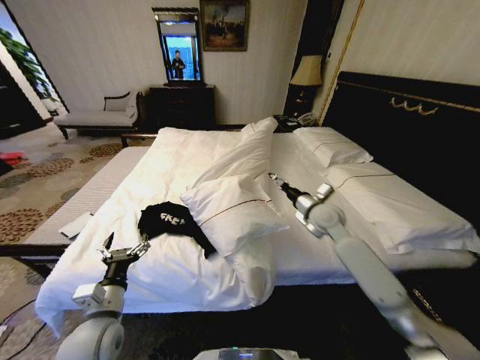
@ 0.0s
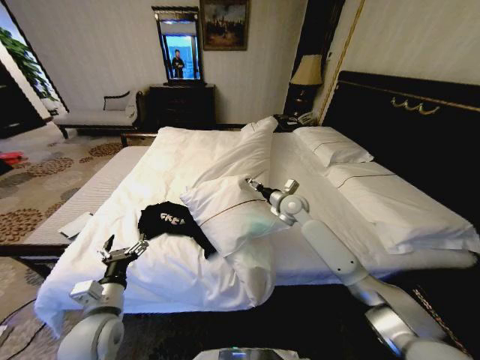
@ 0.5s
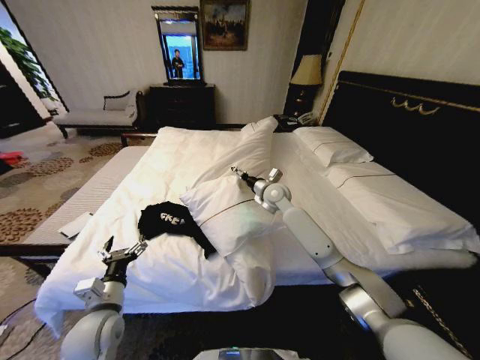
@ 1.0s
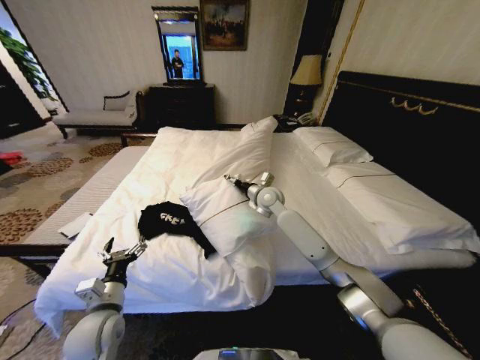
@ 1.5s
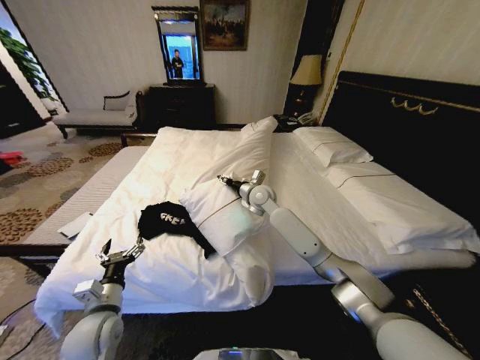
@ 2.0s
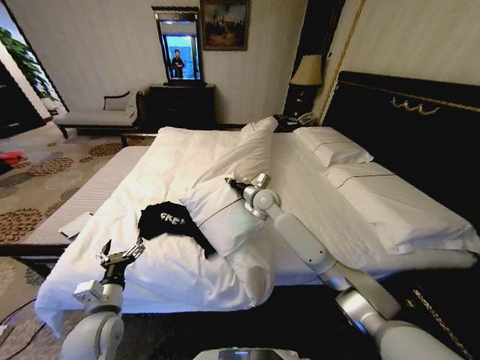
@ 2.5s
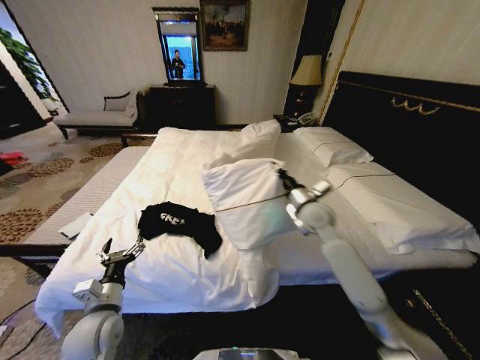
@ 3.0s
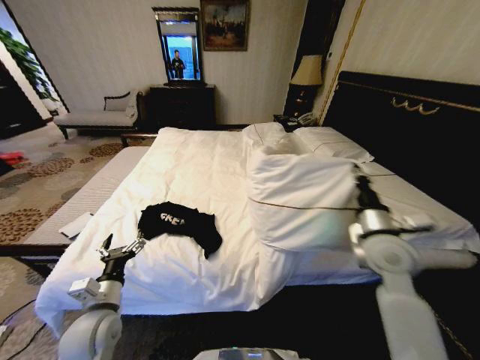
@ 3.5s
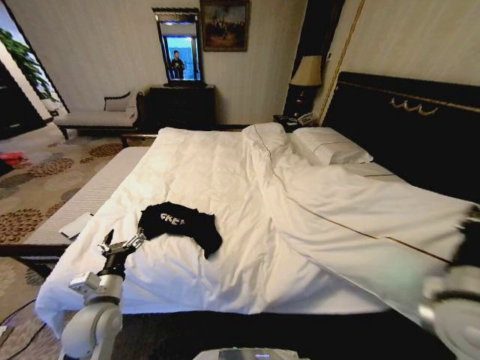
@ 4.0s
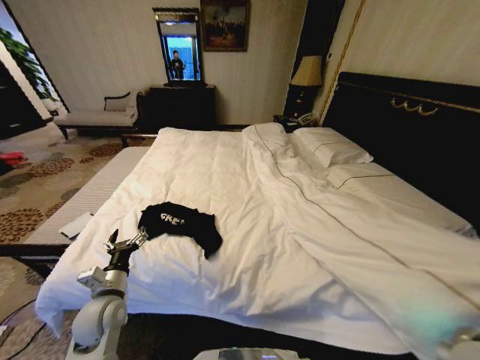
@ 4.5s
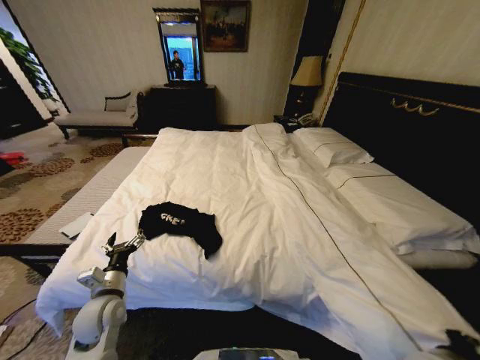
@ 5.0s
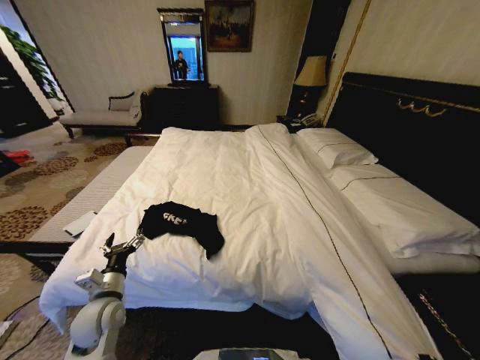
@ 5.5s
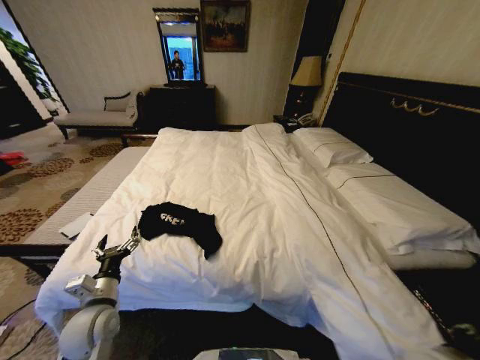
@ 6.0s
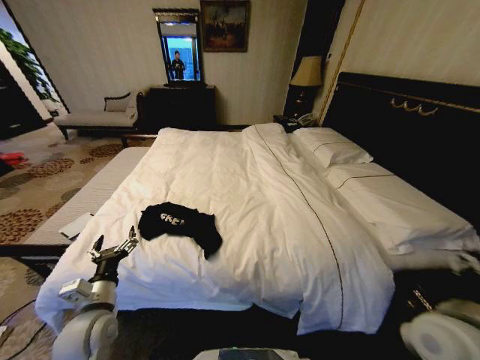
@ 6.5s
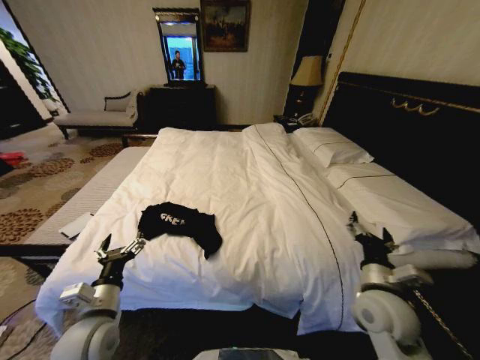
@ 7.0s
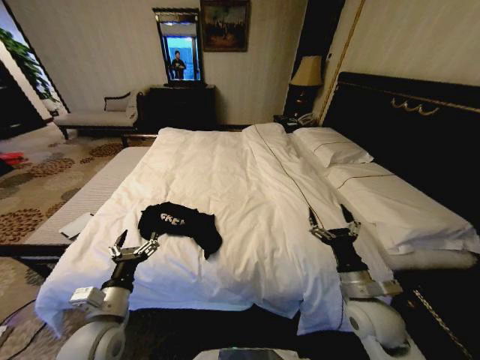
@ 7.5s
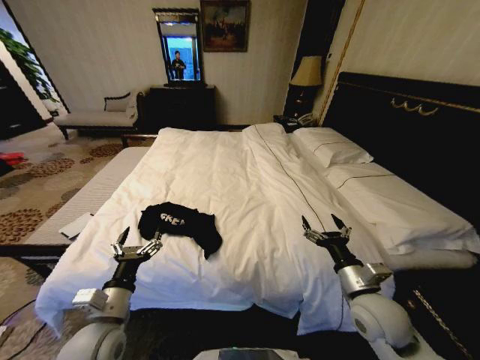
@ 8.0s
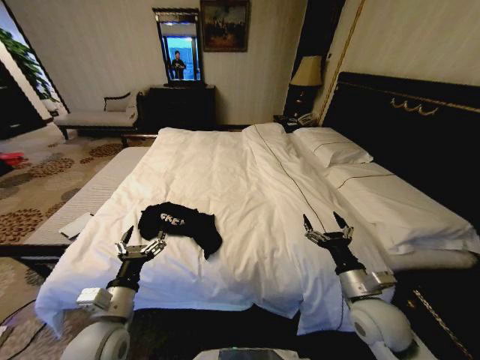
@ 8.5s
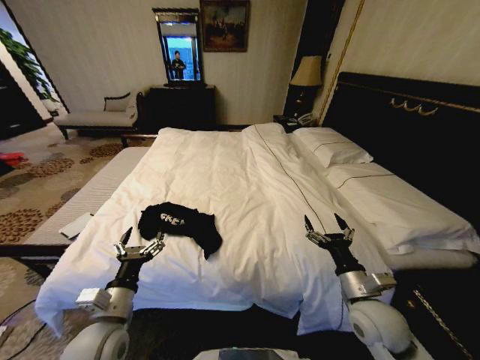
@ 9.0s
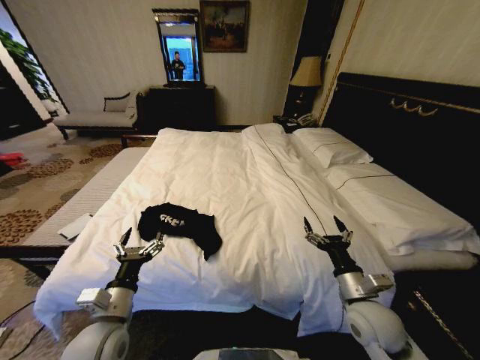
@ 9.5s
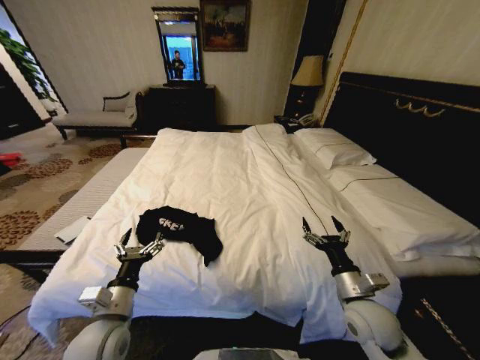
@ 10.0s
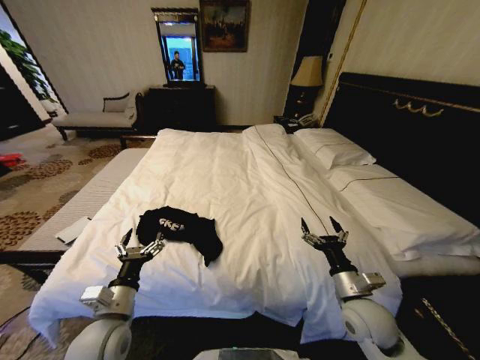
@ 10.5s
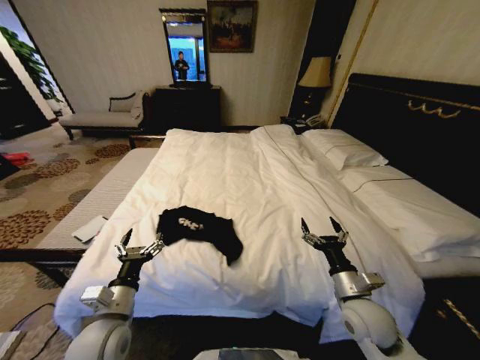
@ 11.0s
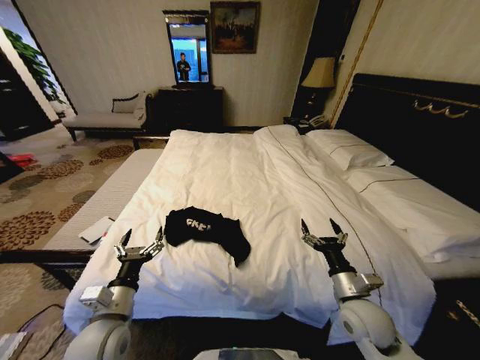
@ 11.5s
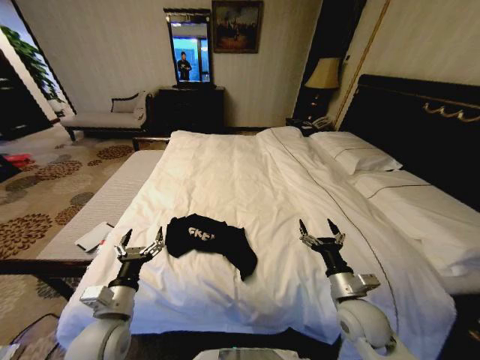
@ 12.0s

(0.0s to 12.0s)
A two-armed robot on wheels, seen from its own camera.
Task of the whole recording: Fold the clothes on the bed.
0.0s - 2.0s: The right gripper moves to the left and forward, roughly 20 cm.
2.0s - 4.0s: The right gripper goes some 50 cm backward and to the right, and closes up.
4.0s - 6.0s: The right gripper goes roughly 15 cm downward and backward, and opens.
6.0s - 8.0s: The left gripper changes place by some 5 cm, while the right gripper goes roughly 10 cm forward and to the left, and opens its fingers.
8.0s - 10.0s: The grippers stay close to where they were, moving slightly.

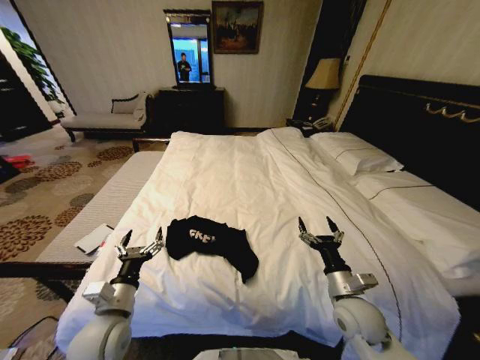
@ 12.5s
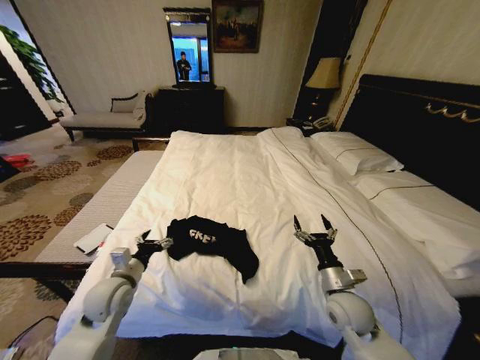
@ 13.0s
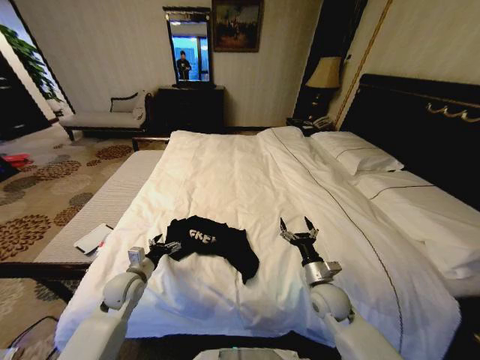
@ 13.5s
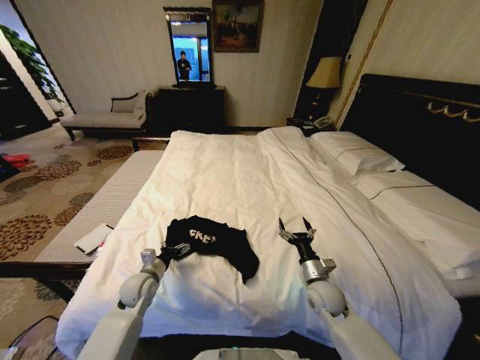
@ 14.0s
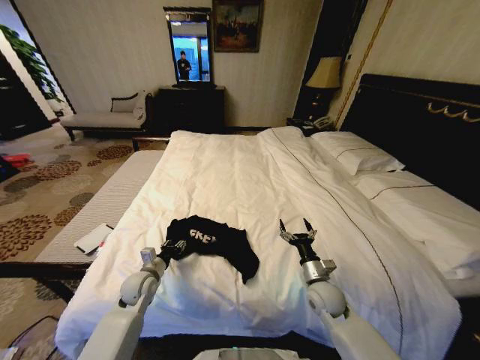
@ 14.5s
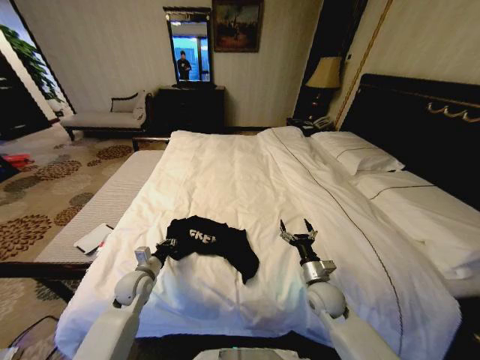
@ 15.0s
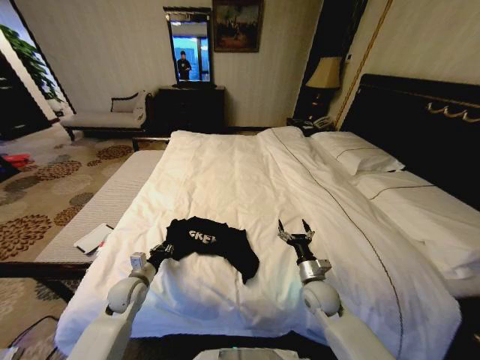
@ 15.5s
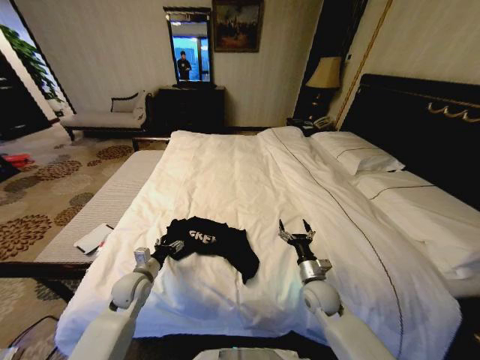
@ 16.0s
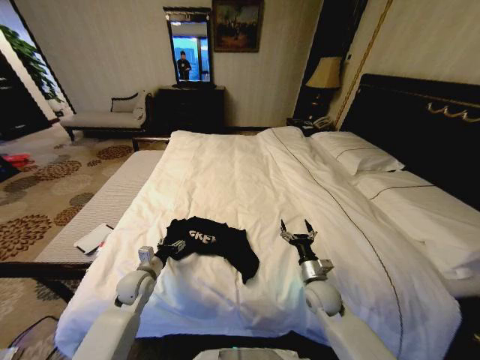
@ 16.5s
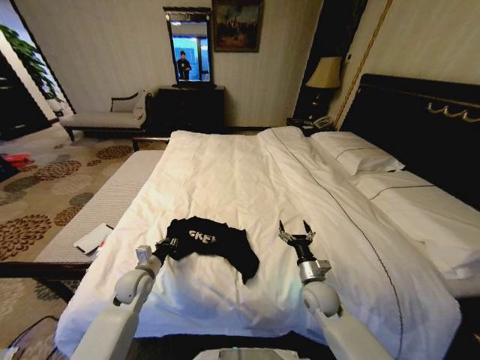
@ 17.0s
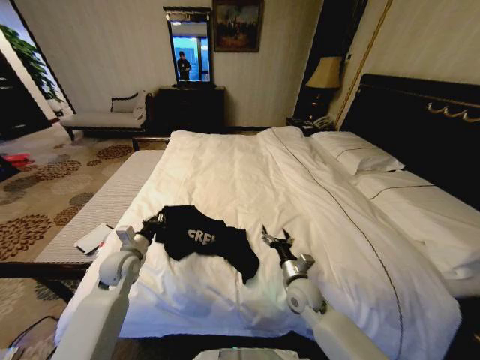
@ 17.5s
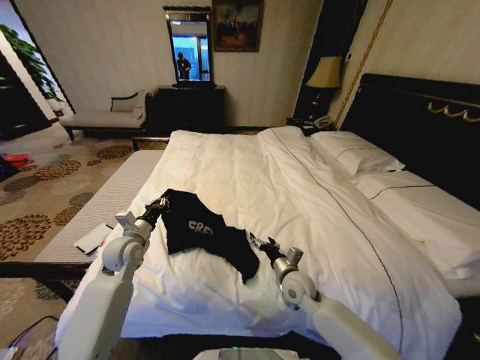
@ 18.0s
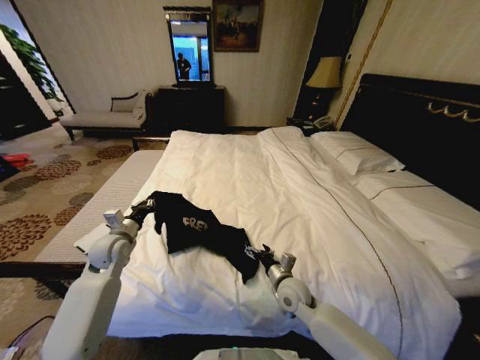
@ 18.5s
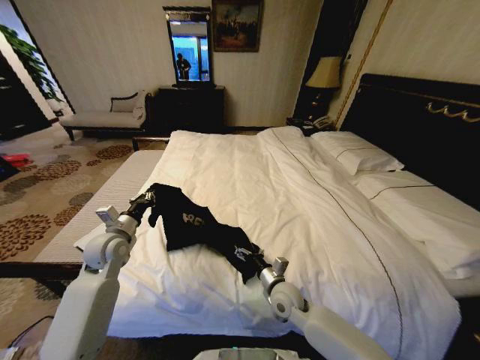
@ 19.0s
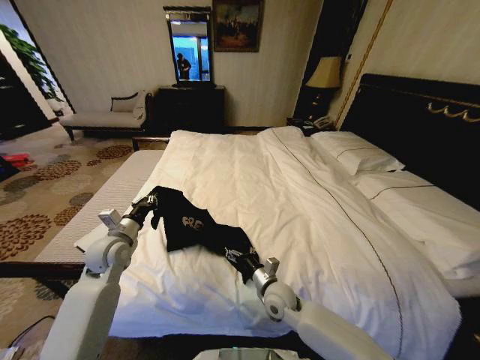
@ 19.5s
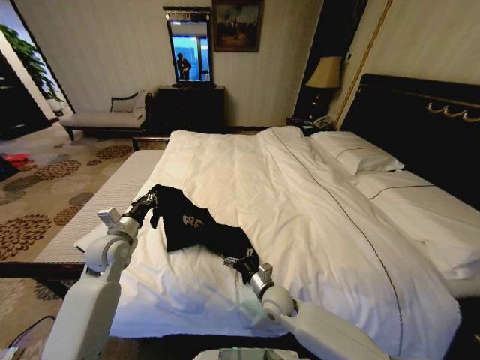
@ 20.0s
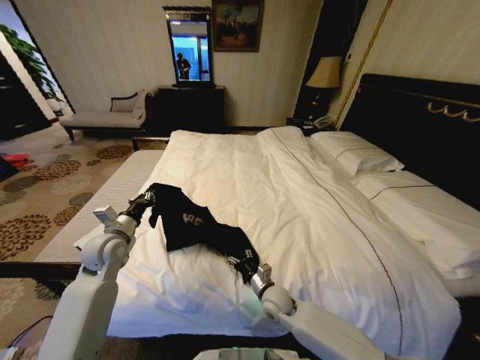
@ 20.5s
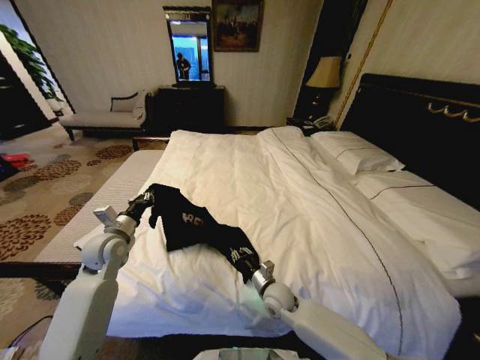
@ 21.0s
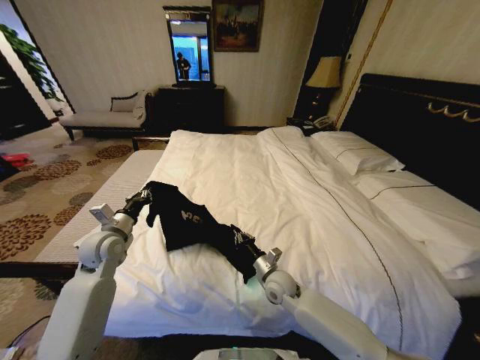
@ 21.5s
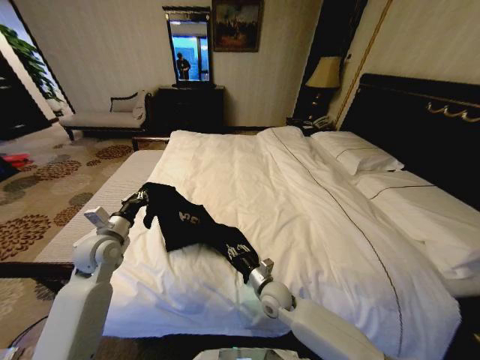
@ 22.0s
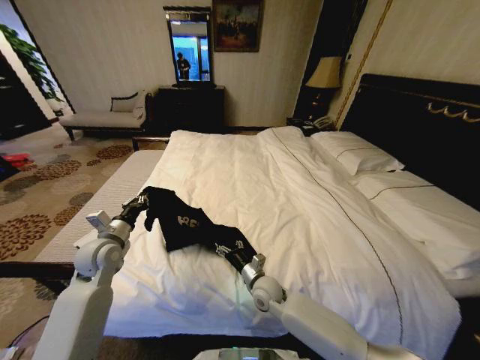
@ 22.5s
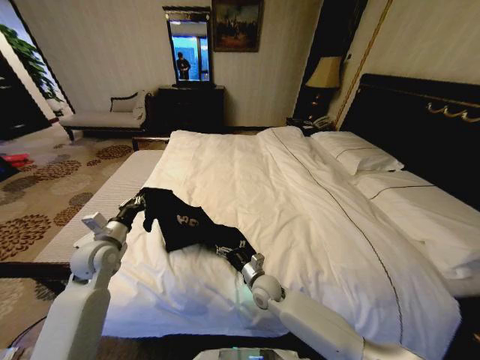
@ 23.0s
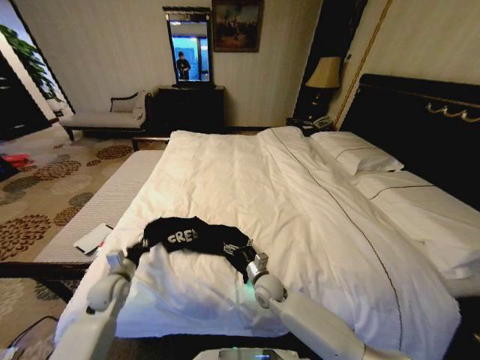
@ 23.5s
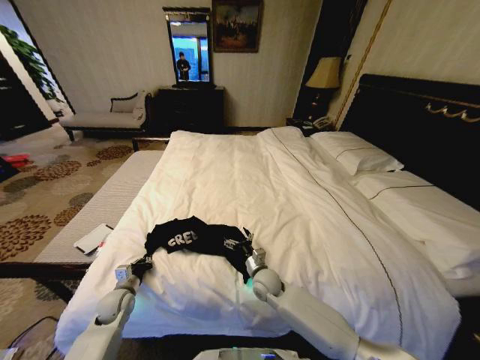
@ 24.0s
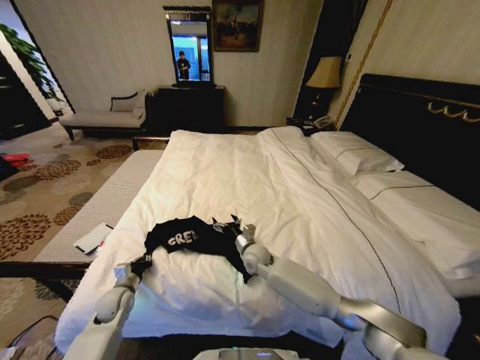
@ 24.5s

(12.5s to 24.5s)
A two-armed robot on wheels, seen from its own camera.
Task of the whole recording: Fold the clothes on the bed.
12.5s - 14.5s: The right gripper travels downward and forward by roughly 10 cm; the left gripper travels forward and downward by roughly 15 cm, and closes its fingers.
14.5s - 16.5s: The left gripper closes, then opens again.
16.5s - 18.5s: The left gripper travels upward, forward and to the left by about 15 cm, and closes its fingers. Meanwhile the right gripper shifts some 10 cm to the left.
18.5s - 20.5s: The right gripper moves downward, approximately 5 cm.
20.5s - 22.5s: The right gripper closes, then reopens.
22.5s - 24.5s: The right gripper heads forward, covering some 10 cm. The left gripper travels downward by some 15 cm.

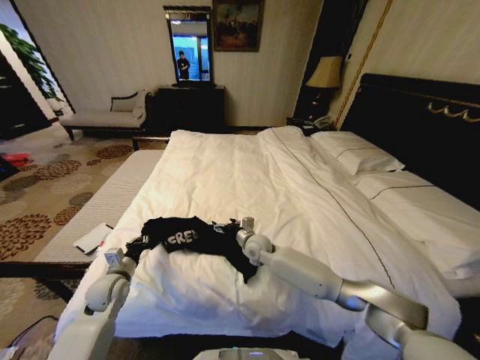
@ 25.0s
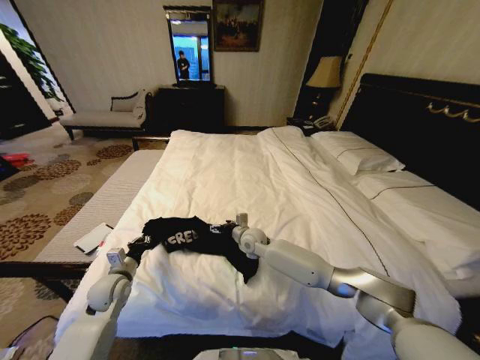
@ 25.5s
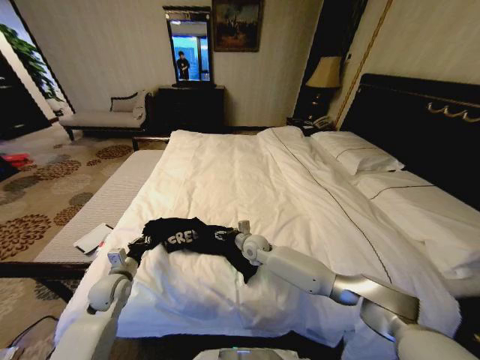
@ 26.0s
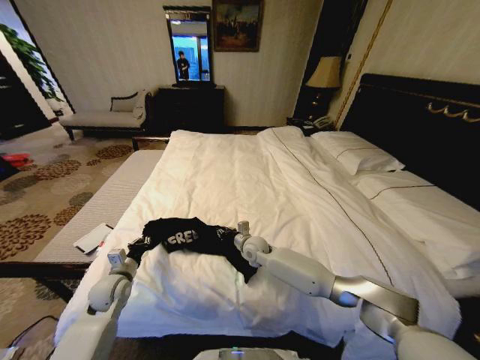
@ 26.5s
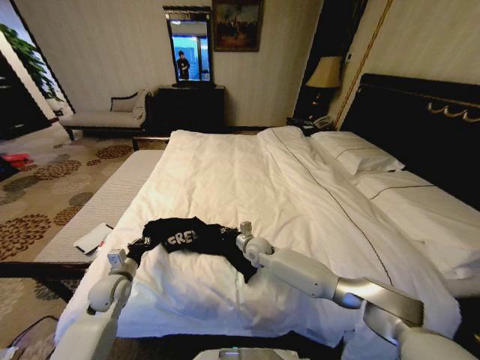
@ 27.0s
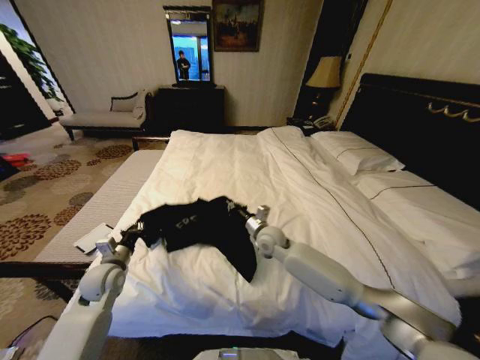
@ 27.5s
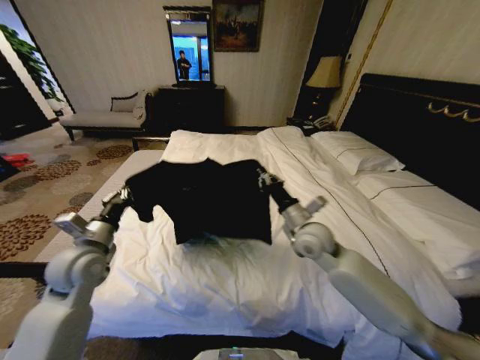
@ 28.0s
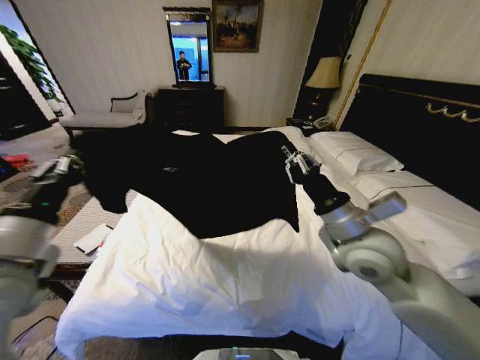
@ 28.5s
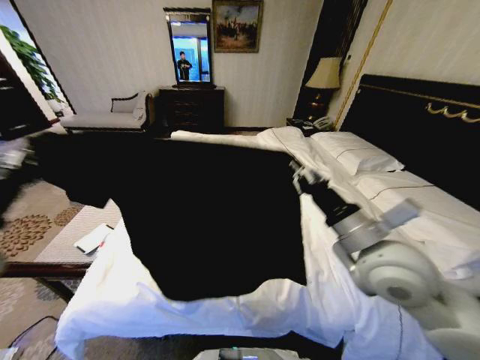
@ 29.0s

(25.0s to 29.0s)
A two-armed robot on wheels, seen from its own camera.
Task of the whole recording: Fold the clothes on the bed.
25.0s - 27.0s: The right gripper closes its fingers.
27.0s - 29.0s: The left gripper heads upward, covering roughly 30 cm; the right gripper shifts some 35 cm upward, backward and to the right.
